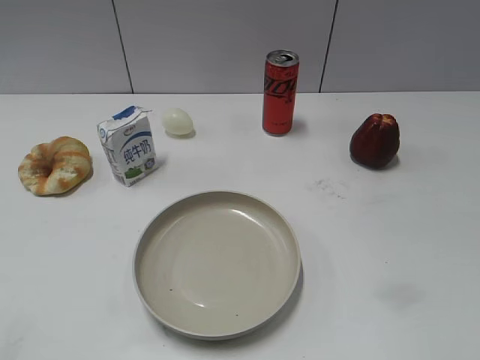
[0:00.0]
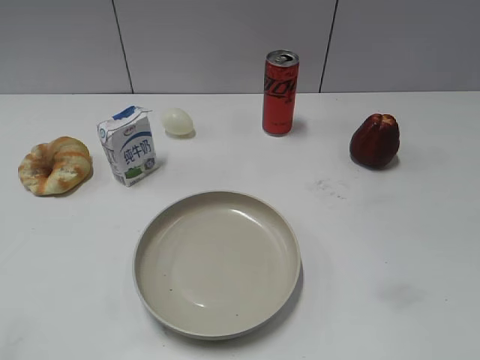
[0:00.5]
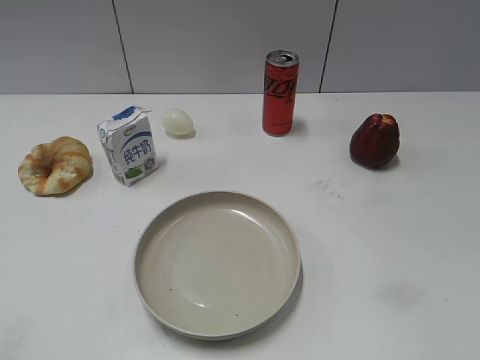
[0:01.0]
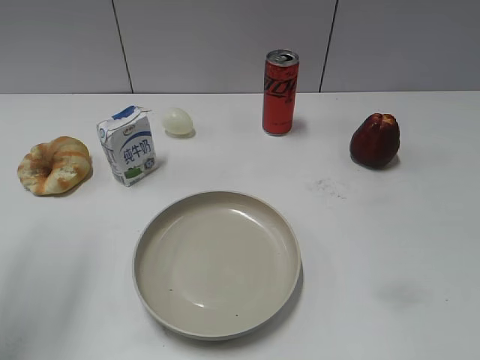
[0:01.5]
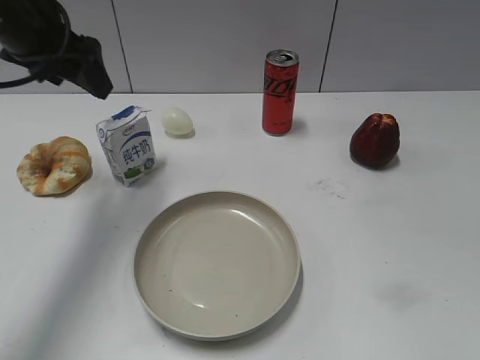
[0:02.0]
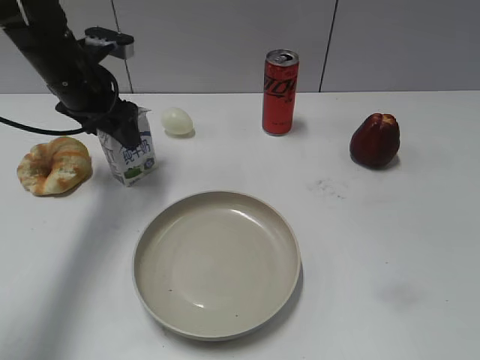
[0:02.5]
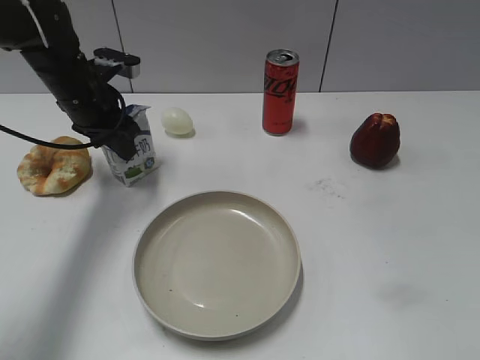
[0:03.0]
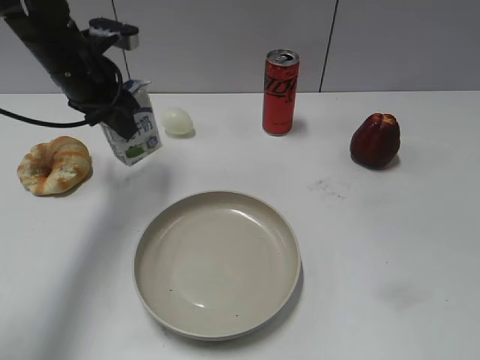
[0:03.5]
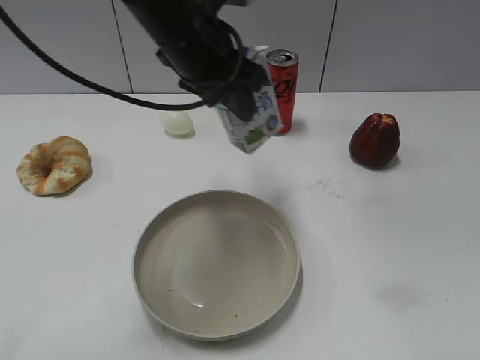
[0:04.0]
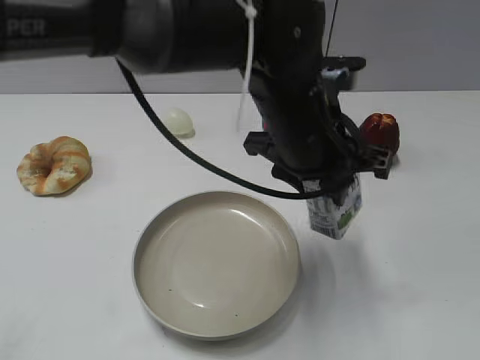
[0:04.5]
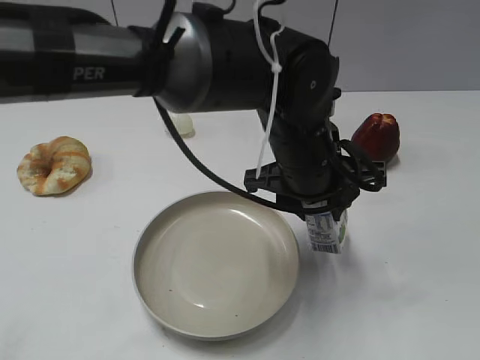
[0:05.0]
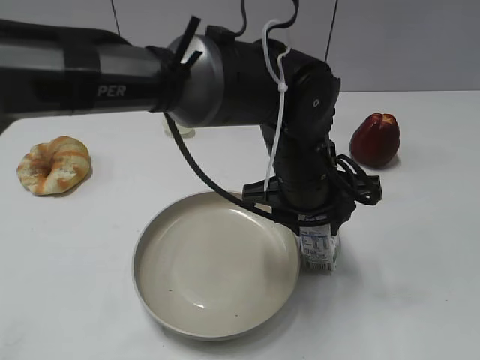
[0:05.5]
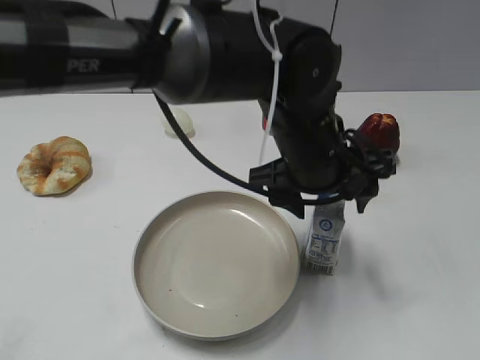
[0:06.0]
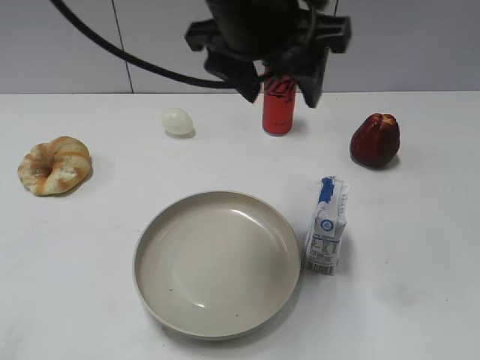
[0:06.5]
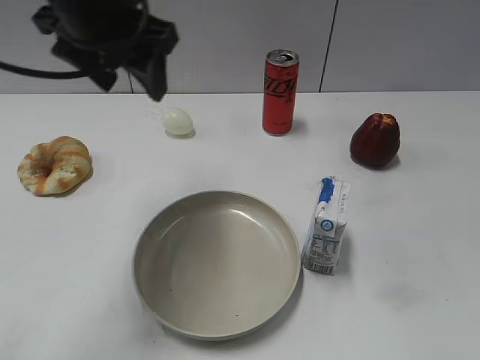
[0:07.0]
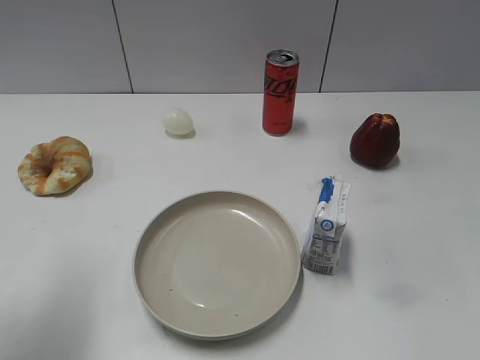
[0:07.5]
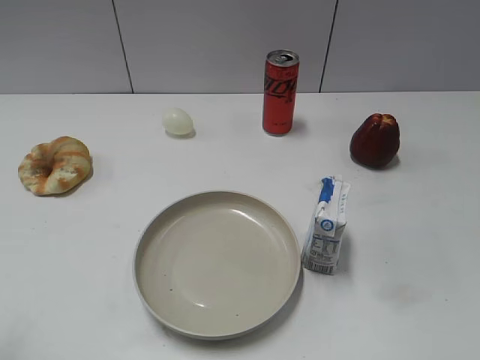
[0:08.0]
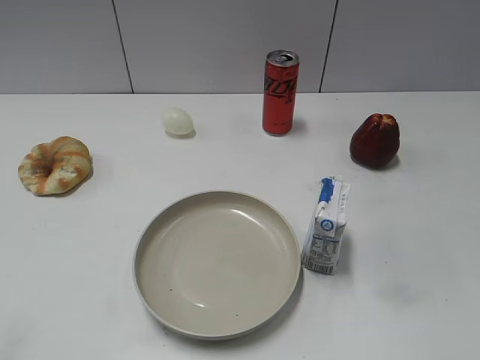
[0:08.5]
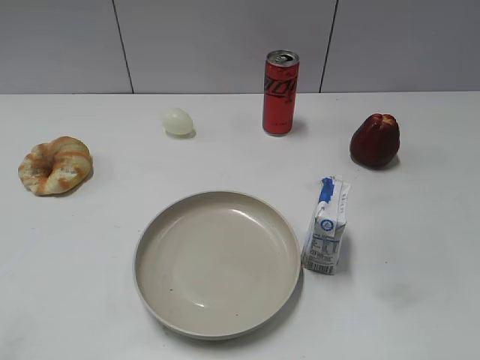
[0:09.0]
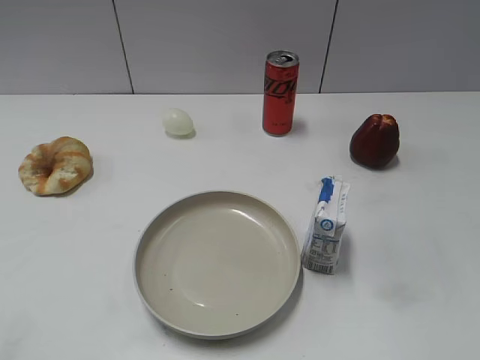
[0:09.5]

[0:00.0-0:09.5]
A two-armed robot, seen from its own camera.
Step, 0:01.0 to 0:03.0: Grasp the milk with left gripper.
Step, 0:03.5 to 0:06.0: Place the milk on the table with left gripper.
0:02.0 to 0:04.0: The left gripper is displaced to the right and backward by approximately 20 cm, and closes its fingers.
0:04.0 to 0:05.5: The left gripper moves downward and to the right, about 15 cm.
0:05.5 to 0:07.5: The left gripper is displaced to the left by roughly 35 cm, and opens.
0:07.5 to 0:09.5: The left gripper is displaced backward by roughly 15 cm.
